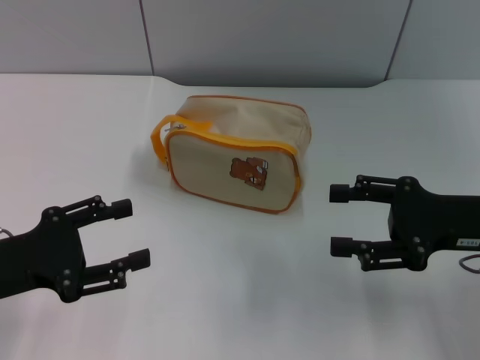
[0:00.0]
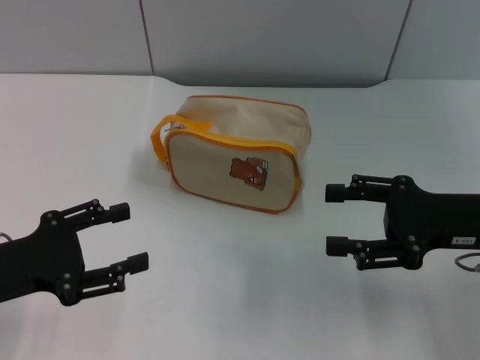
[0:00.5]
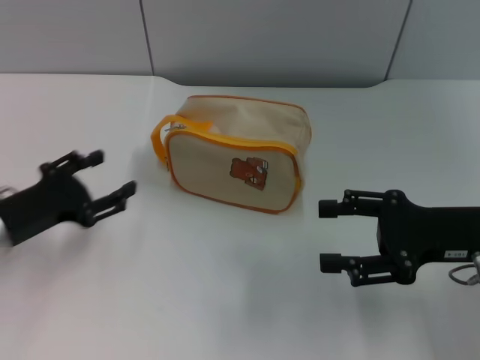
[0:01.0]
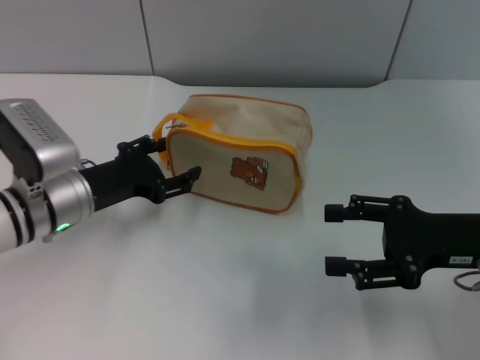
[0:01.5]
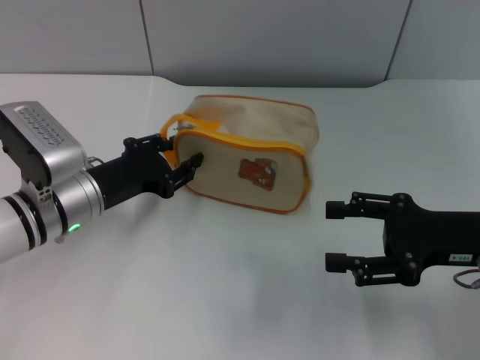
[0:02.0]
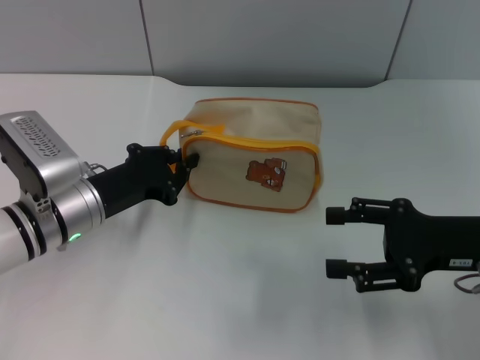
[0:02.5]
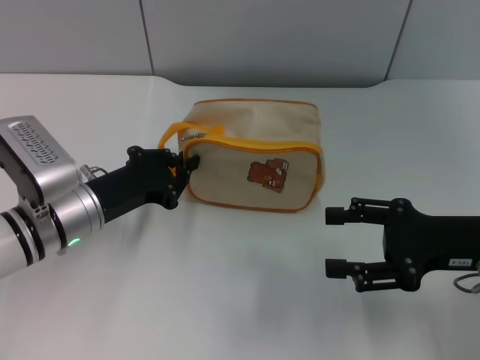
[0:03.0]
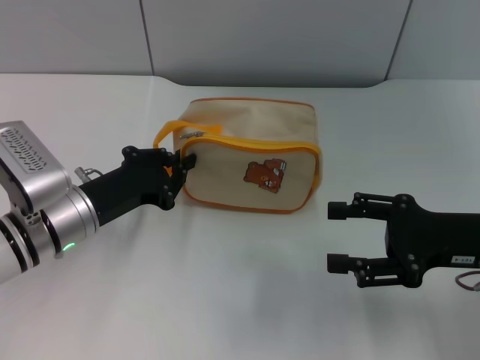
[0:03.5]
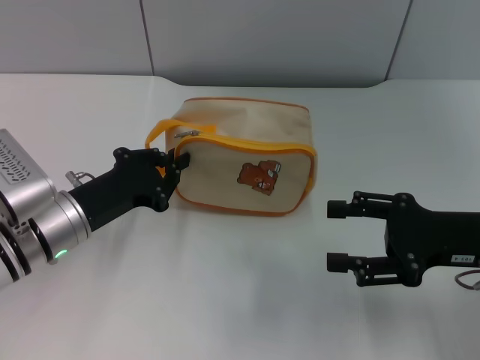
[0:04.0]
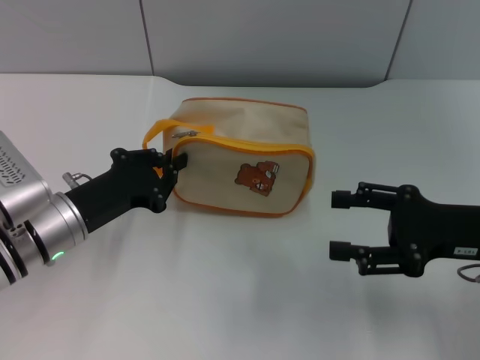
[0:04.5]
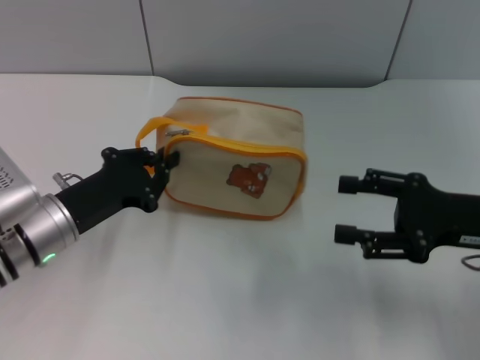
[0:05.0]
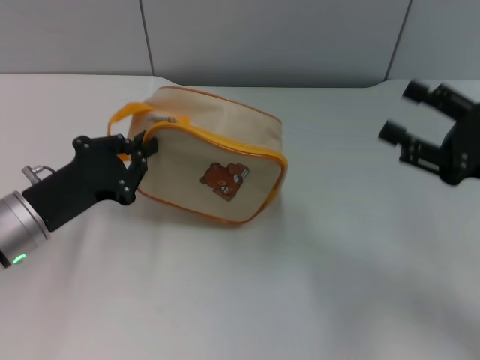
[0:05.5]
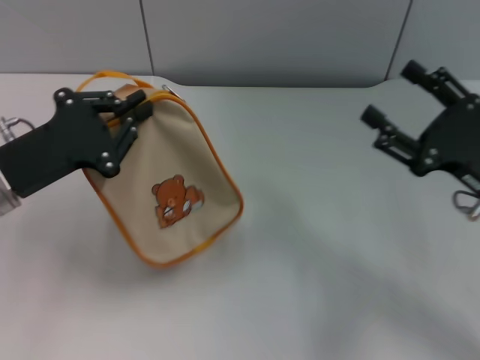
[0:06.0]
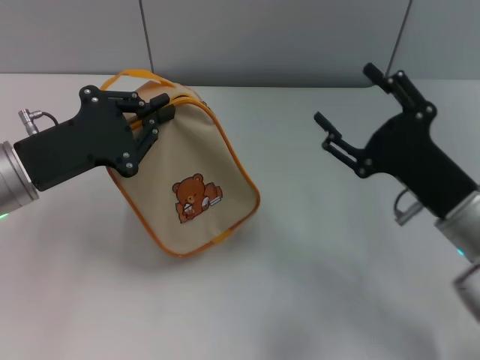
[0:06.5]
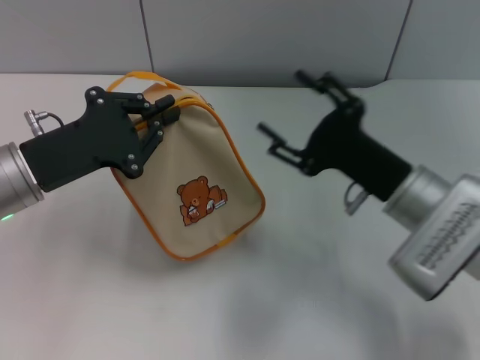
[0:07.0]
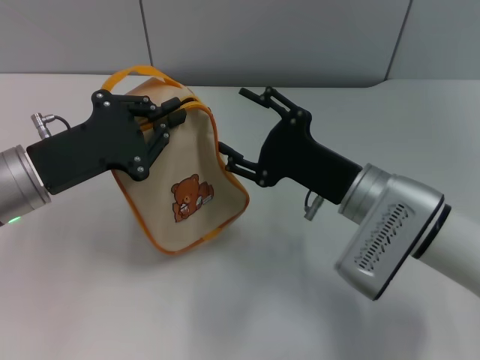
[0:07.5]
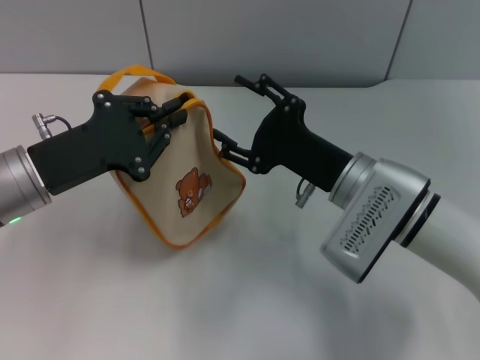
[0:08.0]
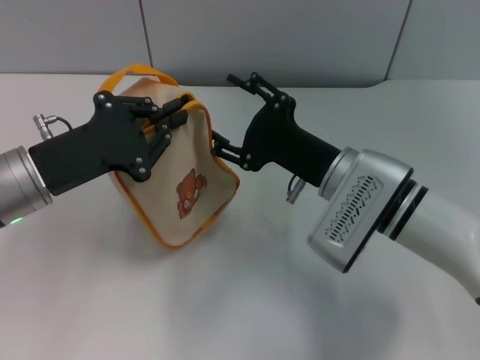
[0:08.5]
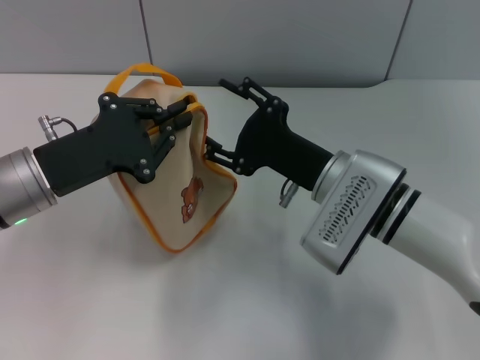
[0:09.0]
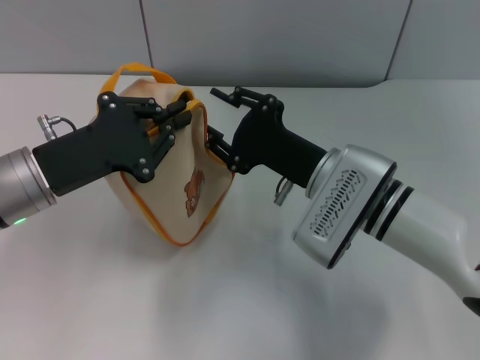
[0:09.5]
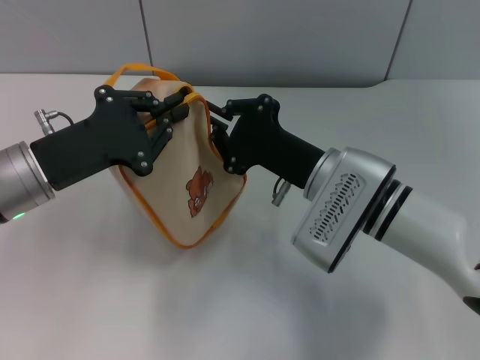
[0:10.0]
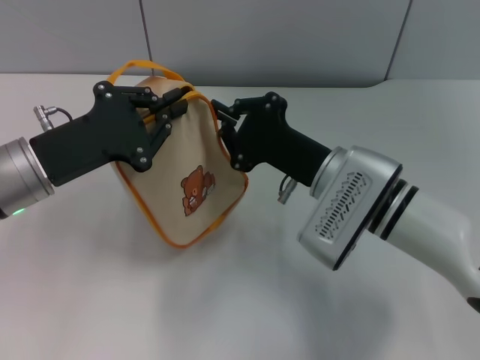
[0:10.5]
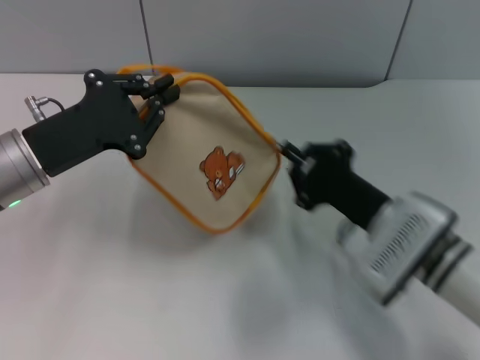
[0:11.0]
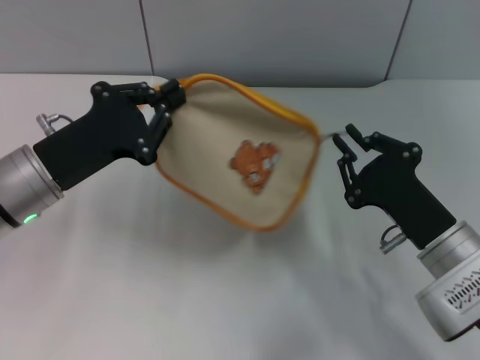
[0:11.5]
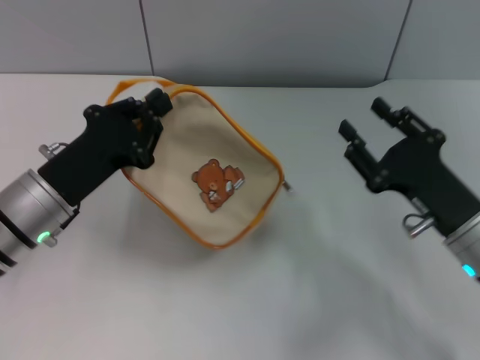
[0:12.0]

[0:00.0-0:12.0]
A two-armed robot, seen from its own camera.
Step, 0:00.0 to 0:05.5: Pick up the bag with left gripper.
Step, 0:06.0 to 0:11.5: Unzip the zipper of bag with right gripper.
0:00.0 to 0:02.0: The left gripper heads forward and to the right, covering approximately 15 cm.
0:02.0 to 0:04.0: The left gripper closes.
0:04.0 to 0:06.0: The left gripper is displaced upward by roughly 5 cm.
0:06.0 to 0:08.0: The right gripper is displaced to the left by roughly 15 cm.
0:08.0 to 0:10.0: The right gripper closes its fingers.
0:10.0 to 0:12.0: The right gripper moves to the right and backward, roughly 15 cm.

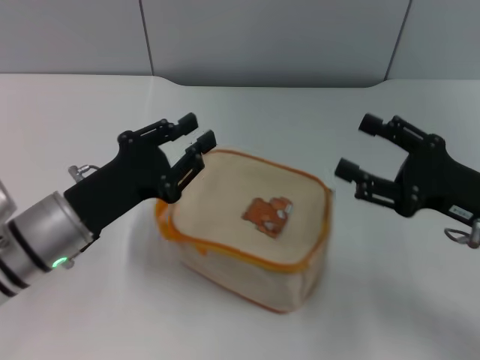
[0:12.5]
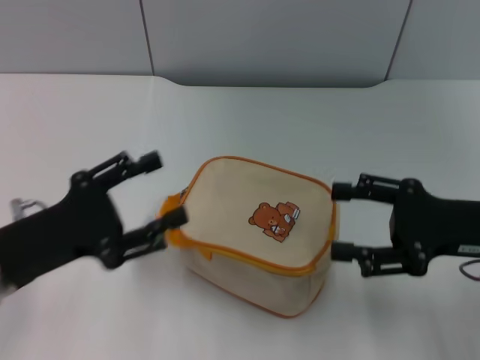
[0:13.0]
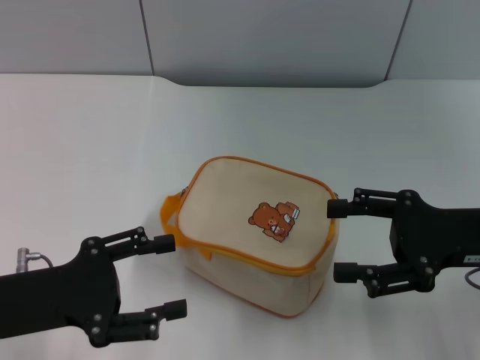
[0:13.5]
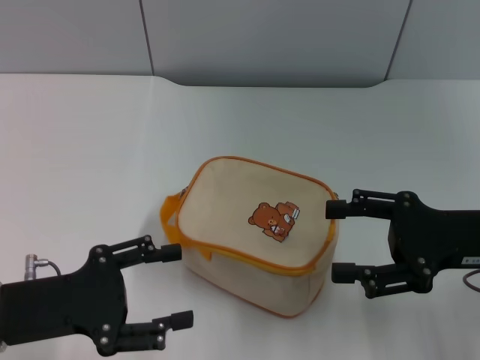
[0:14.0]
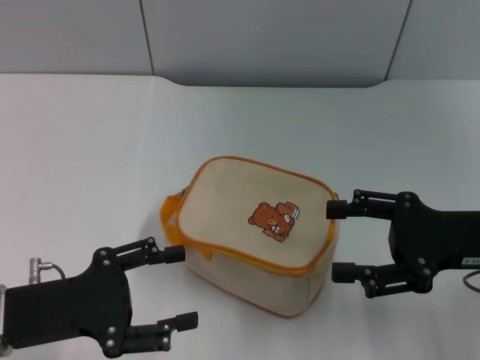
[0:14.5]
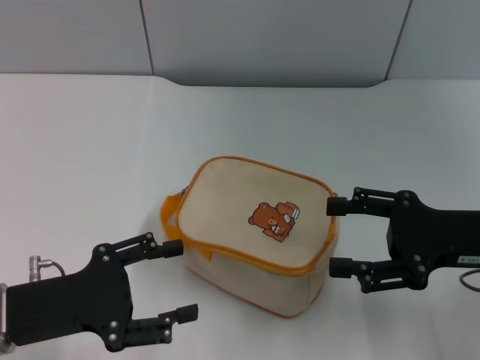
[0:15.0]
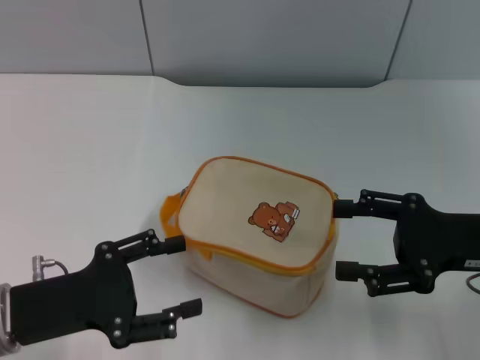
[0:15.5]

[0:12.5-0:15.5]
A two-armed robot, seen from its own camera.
0:12.5 to 0:14.0: The left gripper shifts some 10 cm backward and to the left, and opens up.
0:14.0 to 0:15.5: Both grippers stay put.

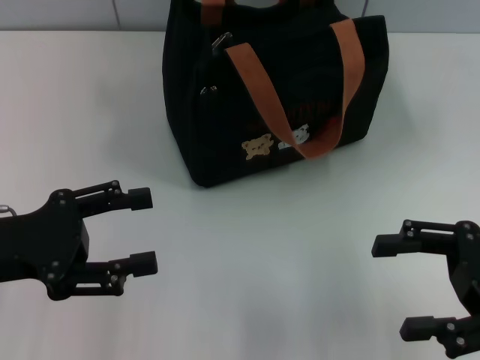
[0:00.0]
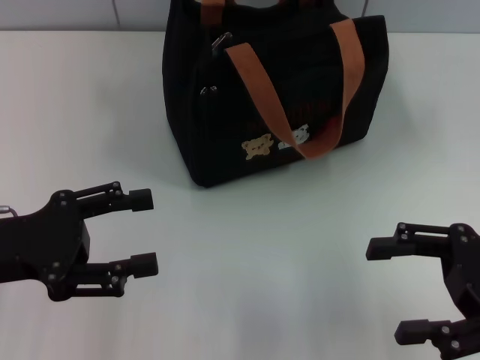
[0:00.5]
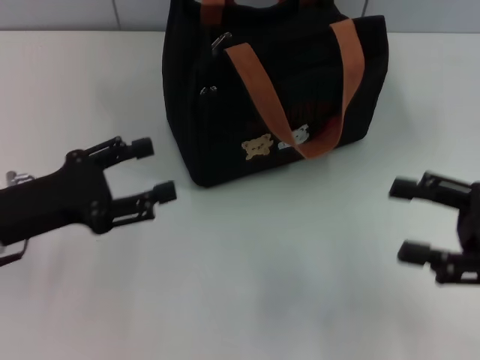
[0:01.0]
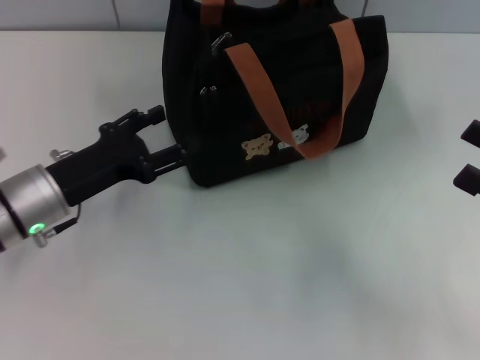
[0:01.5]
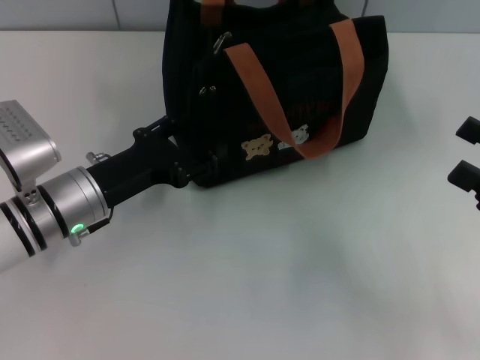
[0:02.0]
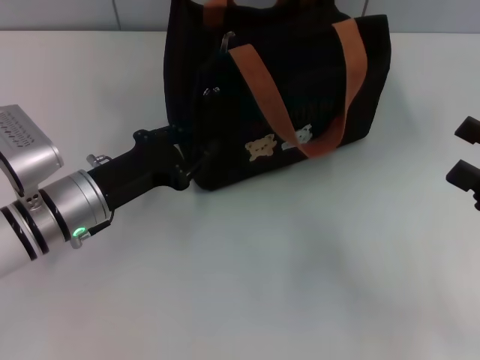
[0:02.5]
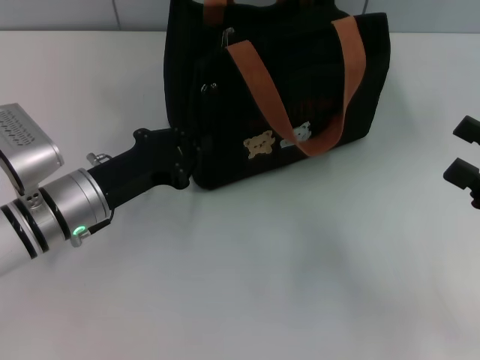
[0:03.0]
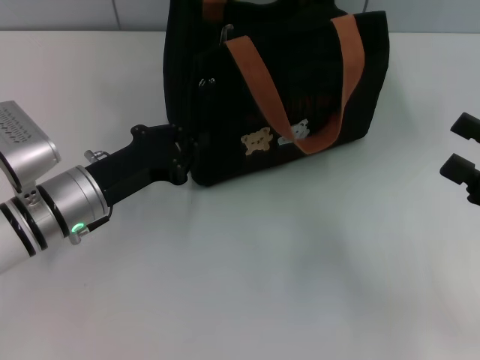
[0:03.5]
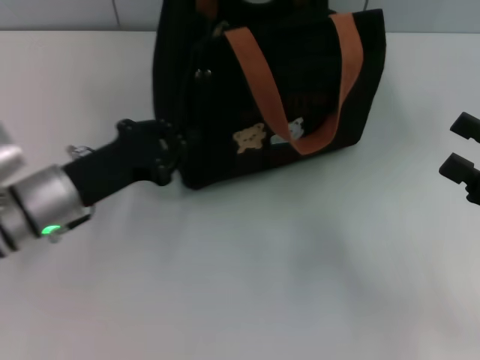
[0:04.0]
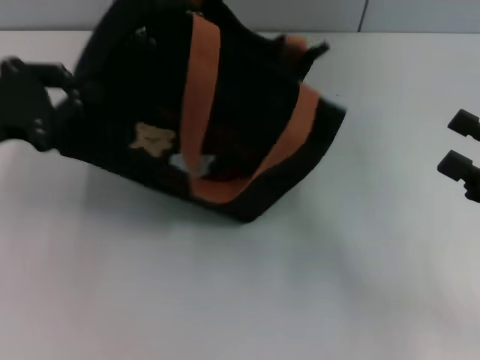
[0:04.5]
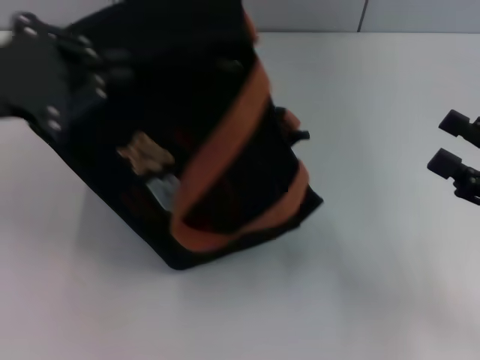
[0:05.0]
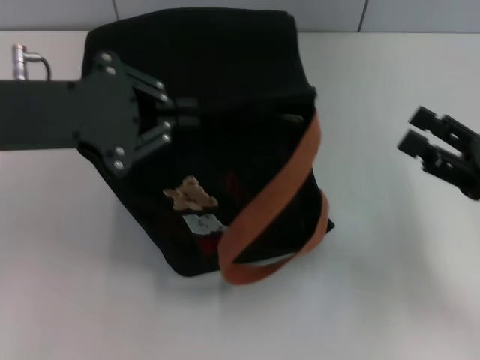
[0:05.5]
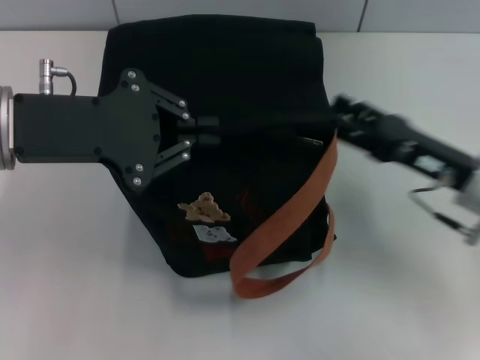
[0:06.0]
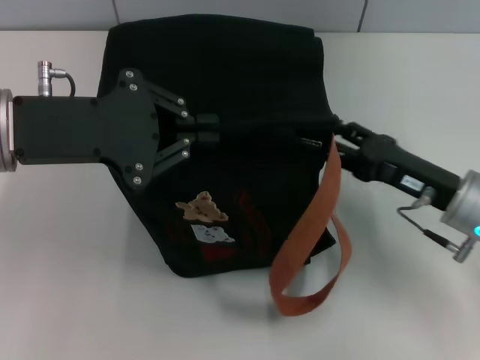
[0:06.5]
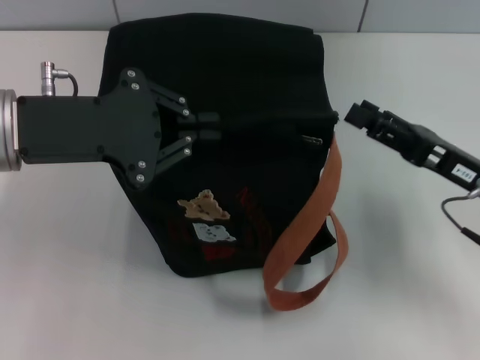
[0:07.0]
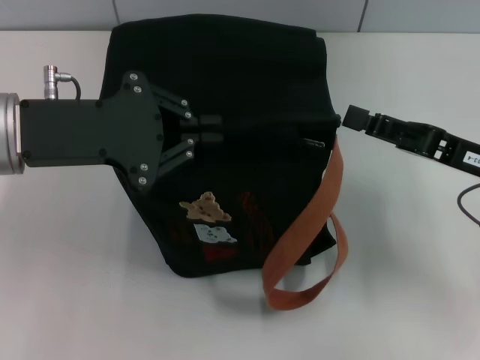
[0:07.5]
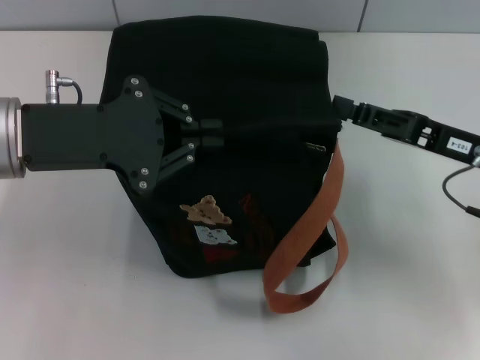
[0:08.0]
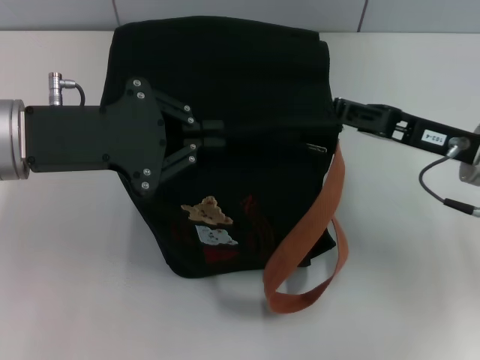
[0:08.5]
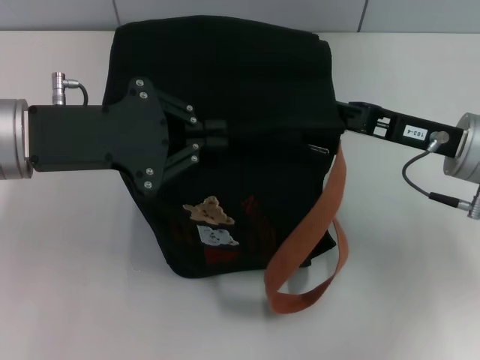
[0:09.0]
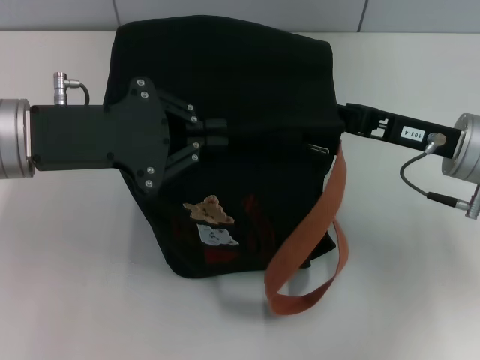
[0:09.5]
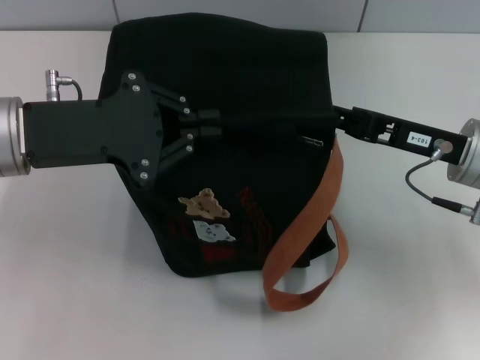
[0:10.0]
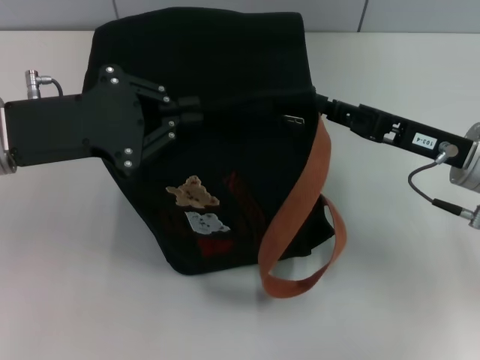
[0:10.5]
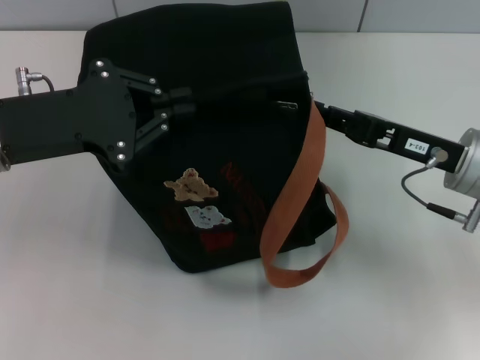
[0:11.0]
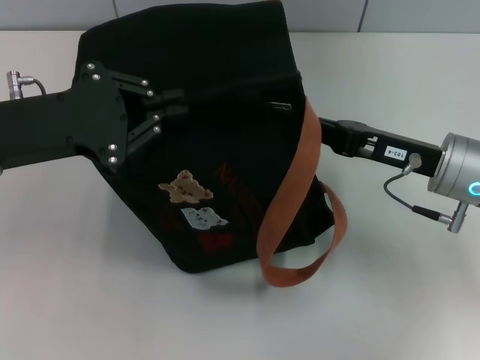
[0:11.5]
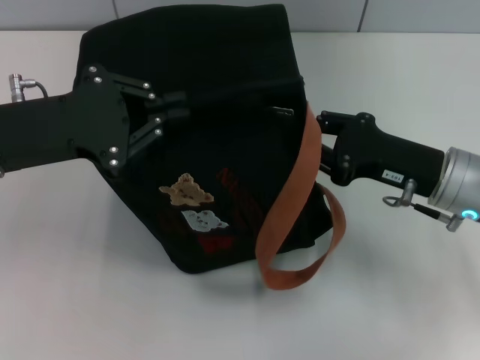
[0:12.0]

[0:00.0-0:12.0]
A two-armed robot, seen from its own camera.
0:00.0 to 0:02.0: The left gripper heads to the right, forward and downward, covering some 15 cm.
0:02.0 to 0:04.0: The left gripper closes its fingers.
0:04.0 to 0:06.0: The right gripper travels to the left and forward by roughly 10 cm, while the left gripper goes about 15 cm upward.
0:06.0 to 0:08.0: The right gripper closes up.
0:08.0 to 0:10.0: The right gripper closes up.
